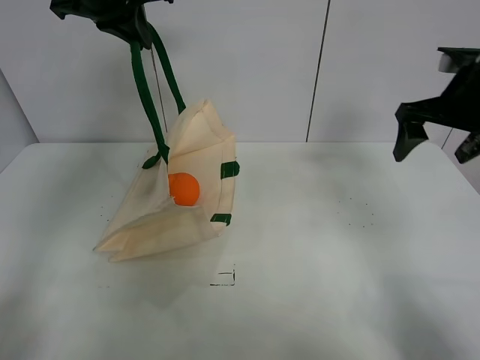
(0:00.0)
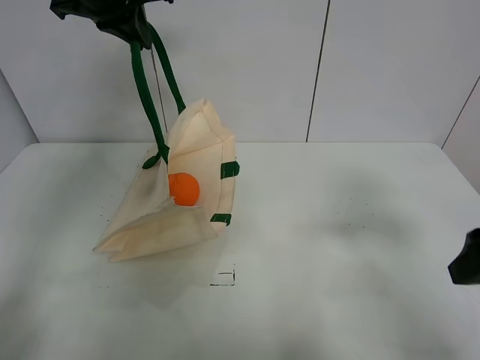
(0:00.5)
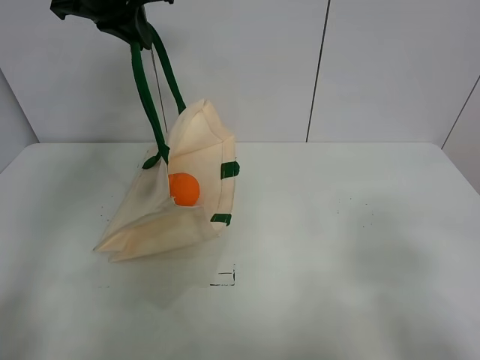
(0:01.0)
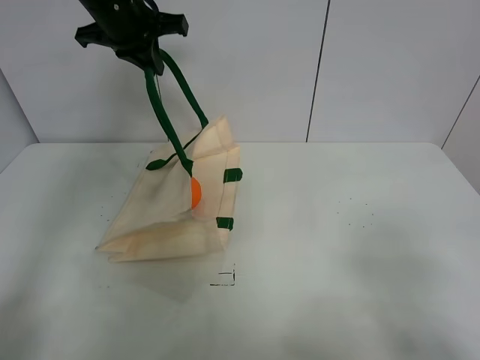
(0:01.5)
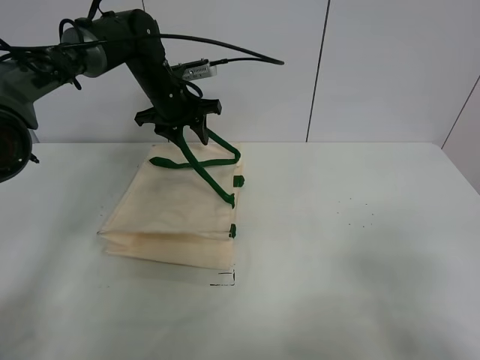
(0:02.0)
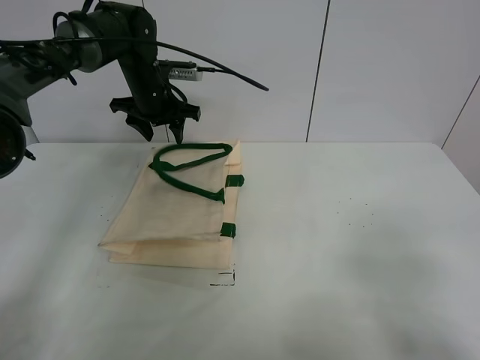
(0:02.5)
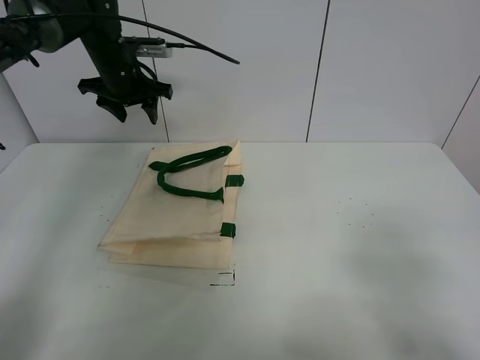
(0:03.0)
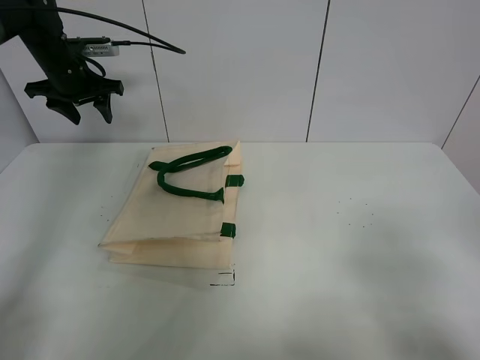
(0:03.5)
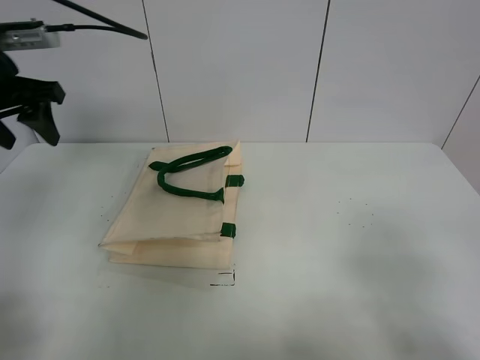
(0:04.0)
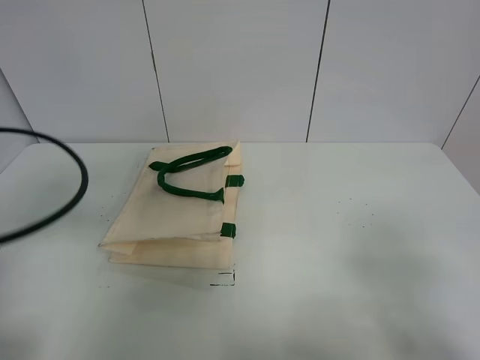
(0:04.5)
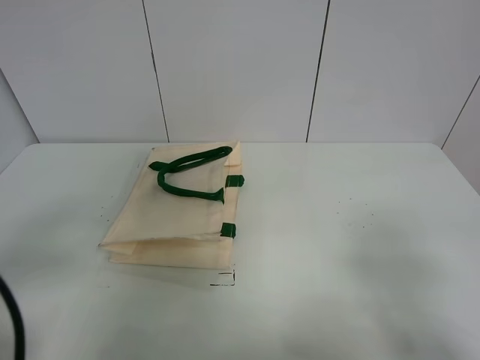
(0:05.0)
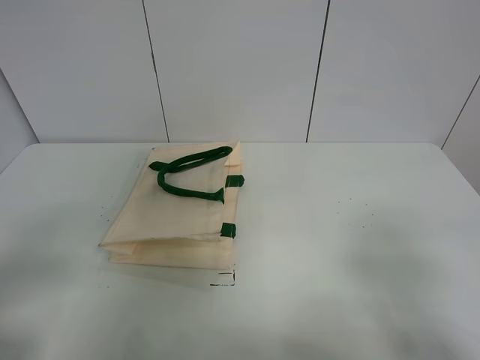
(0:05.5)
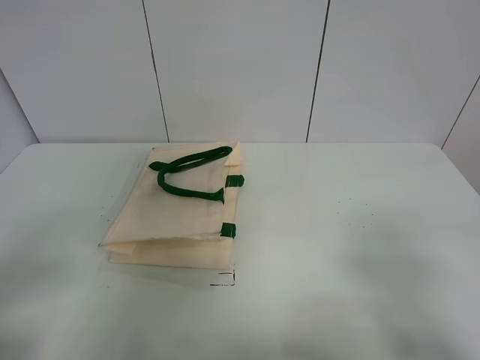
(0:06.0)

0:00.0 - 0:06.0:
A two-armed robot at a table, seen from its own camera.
Task of the whole recording: open the white linen bag and put the orange in the bag.
Step, 0:00.0 - 0:02.5: Put down the handbag with left gripper.
0:00.0 - 0:02.0: The left gripper goes roughly 20 cm downward and forward, and opens up, while the right gripper is displaced backward by about 30 cm.
0:02.0 - 0:04.0: The left gripper moves backward, to the left and upward, about 25 cm.
0:04.0 - 0:06.0: The left gripper is displaced backward by some 30 cm.
